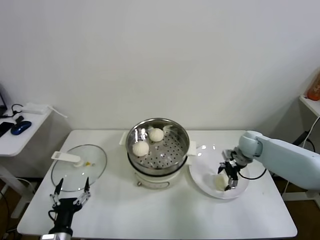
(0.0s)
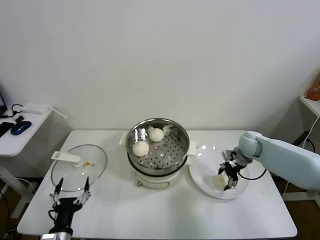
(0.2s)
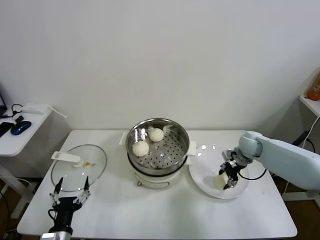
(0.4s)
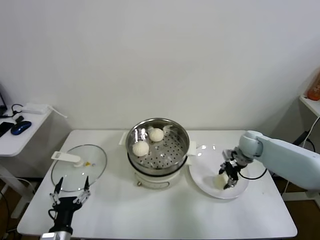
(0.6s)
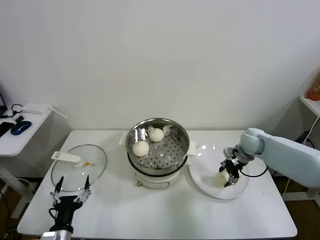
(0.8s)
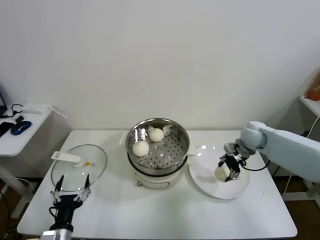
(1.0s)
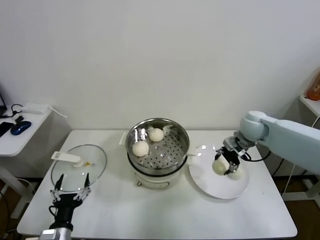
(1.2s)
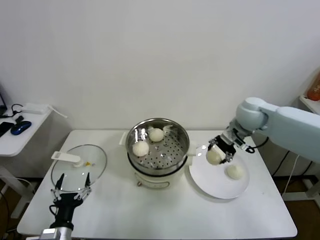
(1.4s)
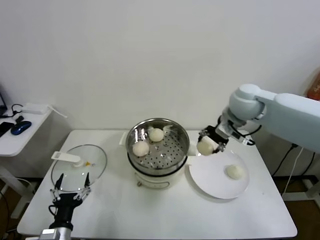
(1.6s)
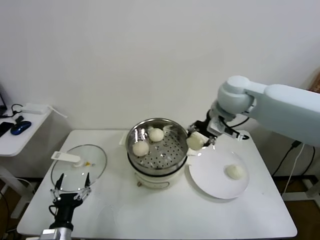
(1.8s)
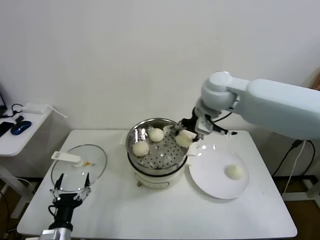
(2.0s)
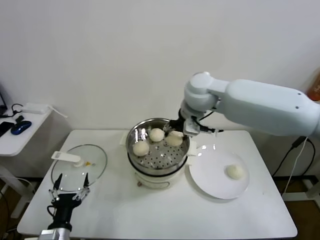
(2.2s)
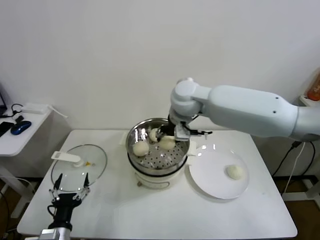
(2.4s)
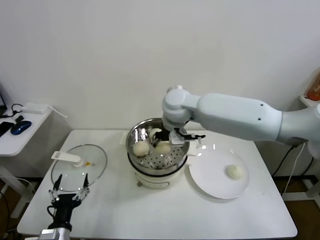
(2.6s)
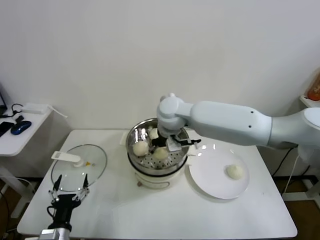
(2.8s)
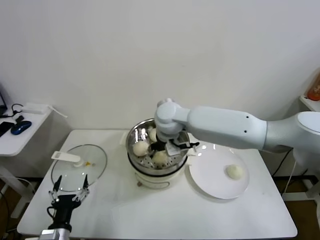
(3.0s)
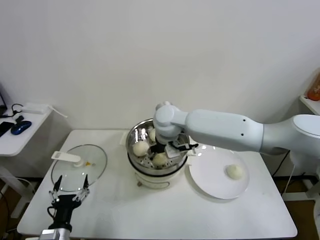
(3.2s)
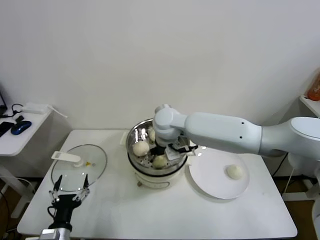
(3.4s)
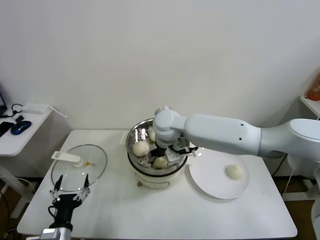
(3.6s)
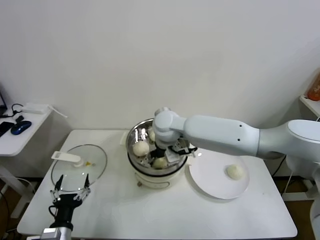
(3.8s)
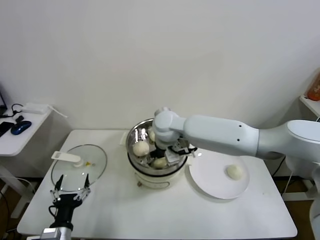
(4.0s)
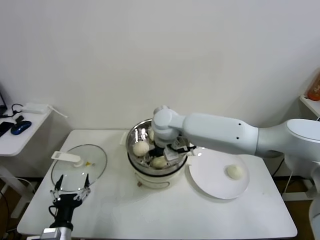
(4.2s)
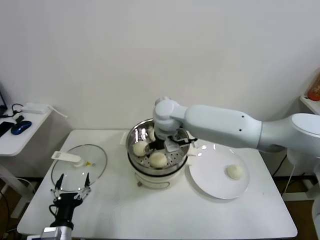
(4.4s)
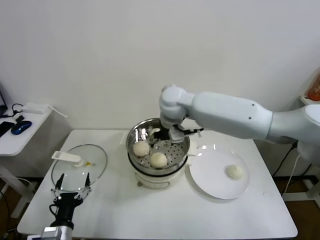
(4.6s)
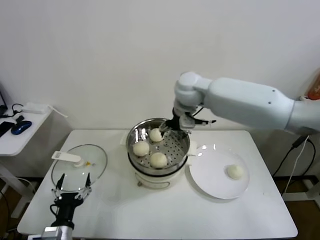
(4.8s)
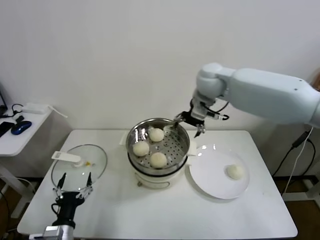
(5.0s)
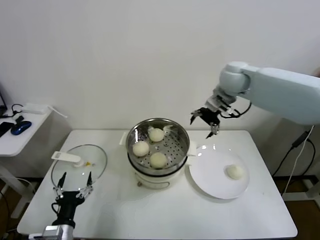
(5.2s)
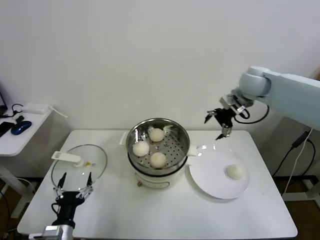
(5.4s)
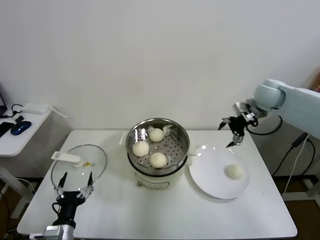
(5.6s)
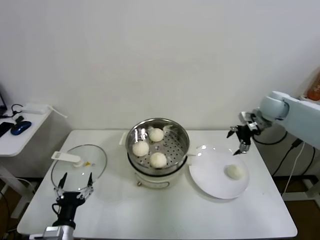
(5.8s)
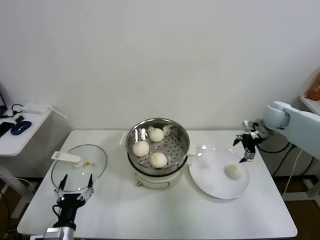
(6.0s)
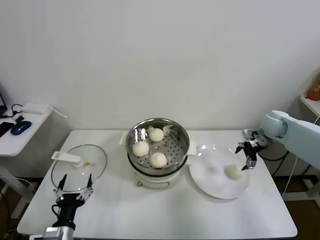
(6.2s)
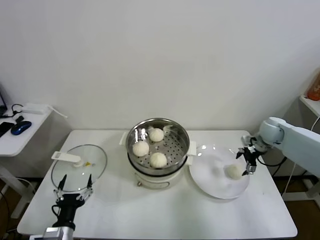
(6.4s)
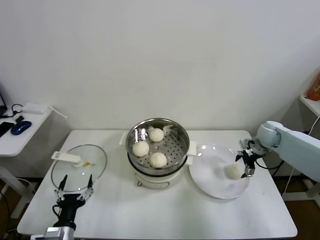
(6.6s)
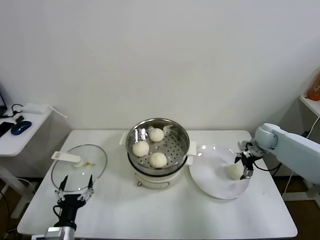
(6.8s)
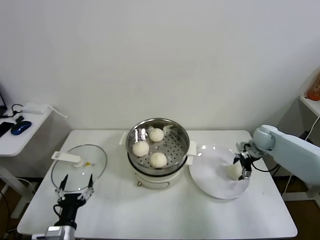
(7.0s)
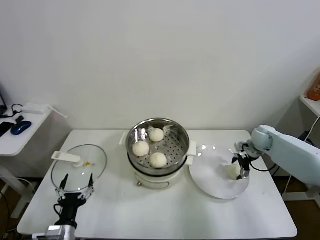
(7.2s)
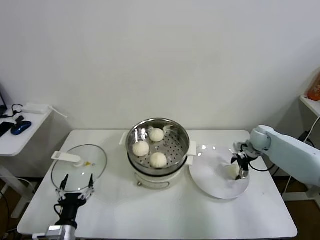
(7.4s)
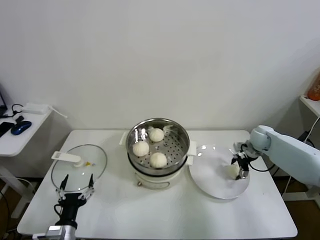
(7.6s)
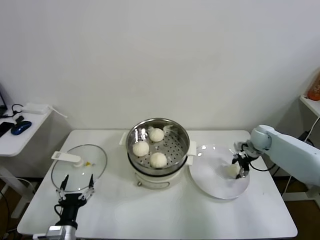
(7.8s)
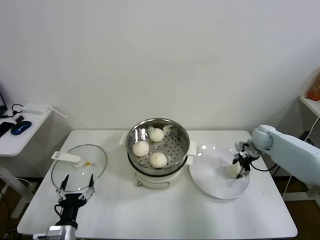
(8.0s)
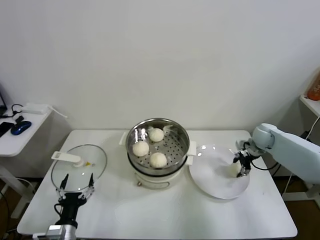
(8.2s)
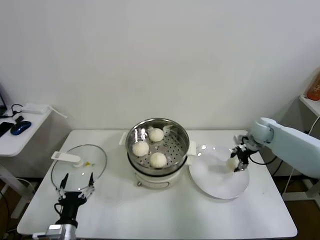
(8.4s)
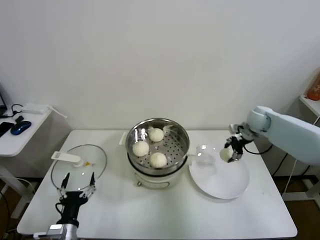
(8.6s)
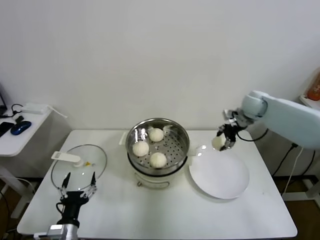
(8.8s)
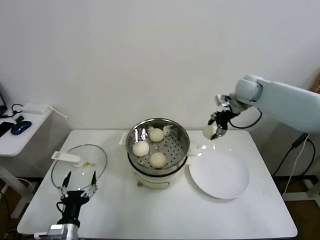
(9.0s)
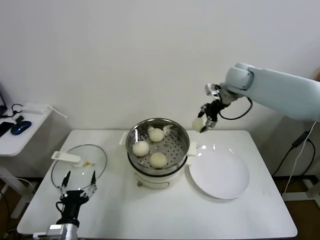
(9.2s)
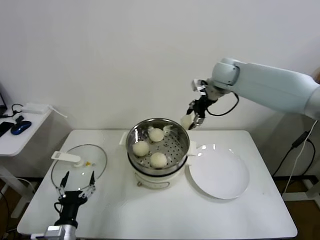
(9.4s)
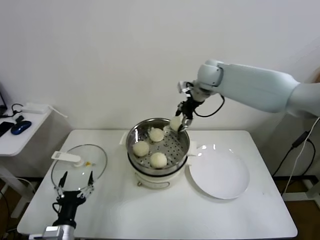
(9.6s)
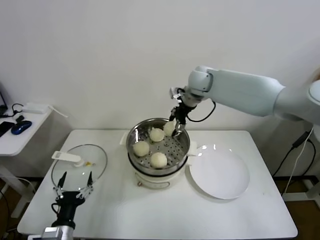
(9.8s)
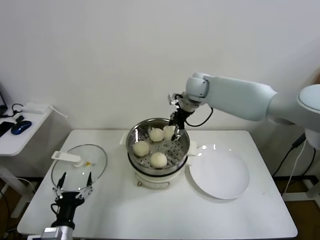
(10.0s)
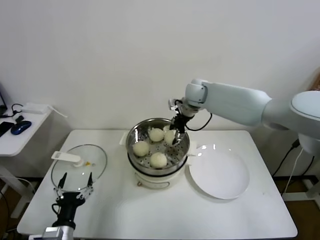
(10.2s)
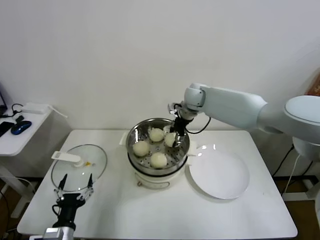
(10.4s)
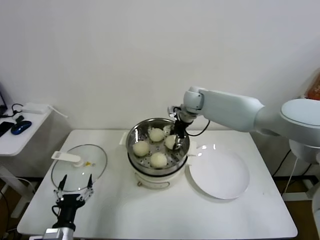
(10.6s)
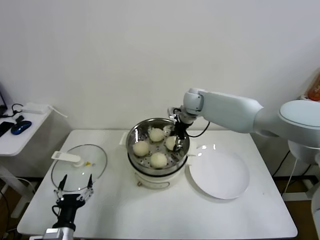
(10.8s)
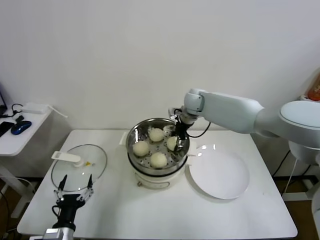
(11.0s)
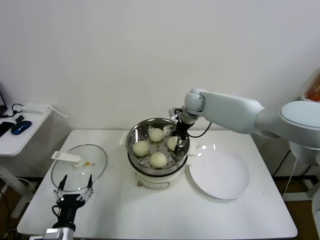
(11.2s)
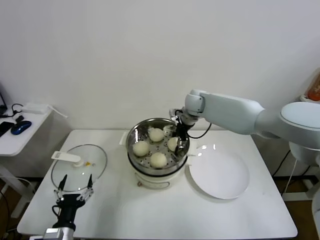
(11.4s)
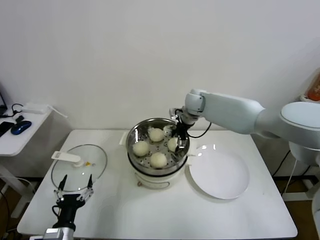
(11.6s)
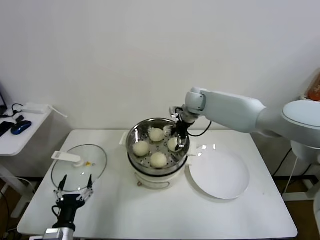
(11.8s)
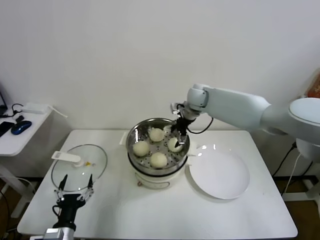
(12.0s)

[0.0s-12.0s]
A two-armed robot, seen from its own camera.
Task of the whole recording: take steamed baozi put them in steamer.
Step, 0.6s to 4.0s: Place the baozi on the steamer with right gripper.
Step, 4.4s to 7.8s: Grasp the baozi in the plate with right gripper.
Step, 8.2s to 11.8s: Place the baozi on the steamer with right gripper.
0.0s to 1.6s: The right gripper moves upward and to the left, approximately 25 cm, and closes its fingers.
1.6s to 3.0s: The right gripper heads to the left, covering approximately 20 cm.
3.0s to 4.4s: The right gripper opens up.
4.4s to 6.0s: The right gripper moves to the right, approximately 40 cm.
6.0s to 7.6s: The right gripper shifts some 10 cm downward.
7.6s to 9.0s: The right gripper shifts some 20 cm upward and to the left, and closes up.
9.0s to 10.4s: The right gripper goes about 20 cm to the left.
10.4s to 12.0s: The right gripper opens up.

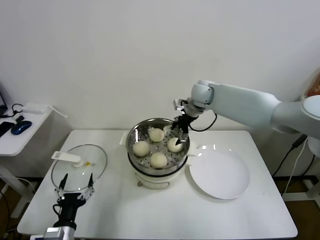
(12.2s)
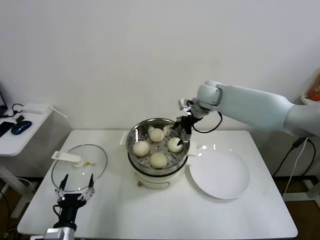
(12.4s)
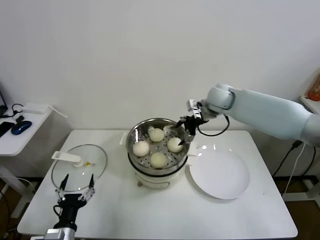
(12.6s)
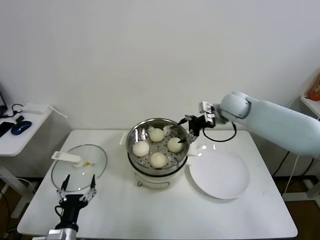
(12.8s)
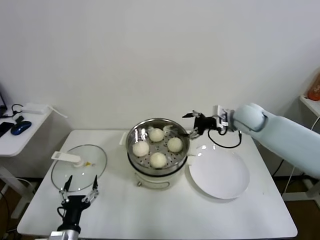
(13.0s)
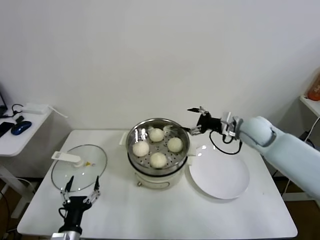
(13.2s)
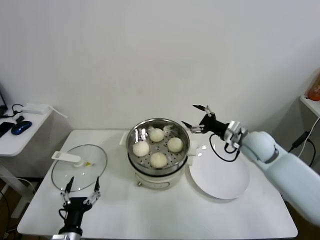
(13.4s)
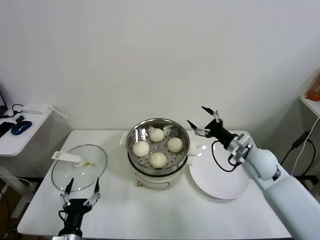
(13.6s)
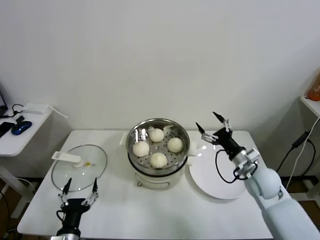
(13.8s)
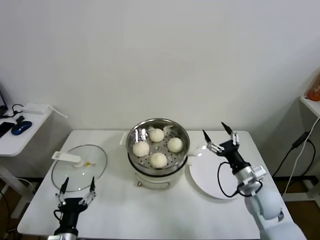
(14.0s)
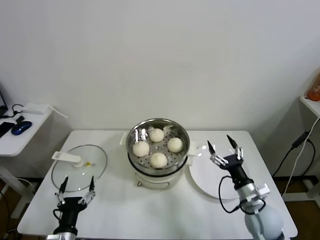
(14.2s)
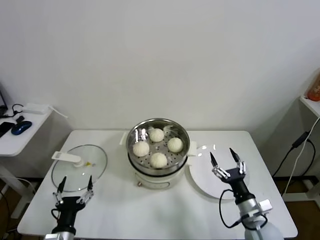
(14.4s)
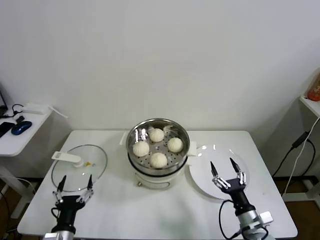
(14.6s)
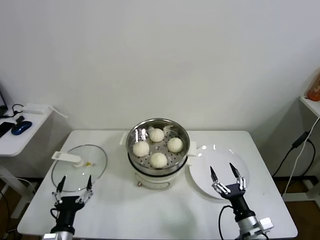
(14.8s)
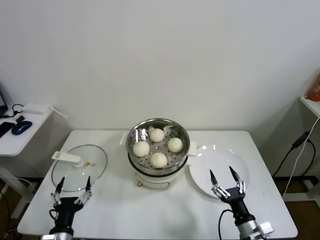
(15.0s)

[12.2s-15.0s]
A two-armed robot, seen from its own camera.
Task of the whole recording: take steamed baozi put them in steamer.
12.2s to 13.6s: The right gripper moves backward, to the right and downward, some 30 cm.
13.6s to 15.0s: The right gripper moves backward and downward, about 30 cm.

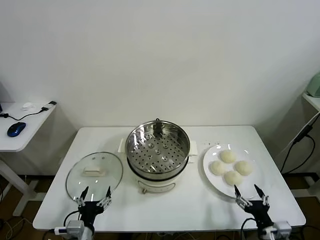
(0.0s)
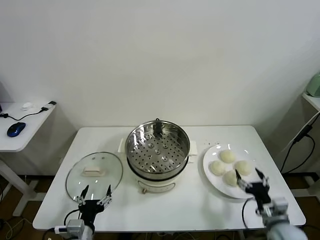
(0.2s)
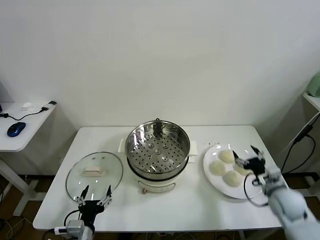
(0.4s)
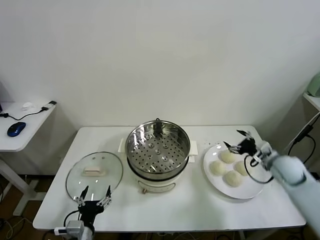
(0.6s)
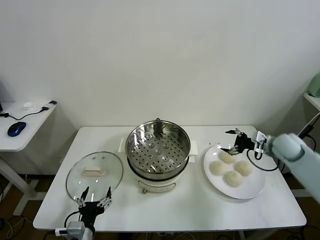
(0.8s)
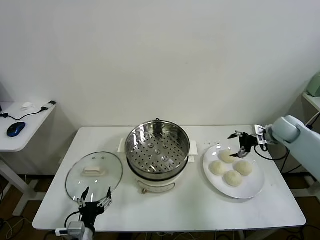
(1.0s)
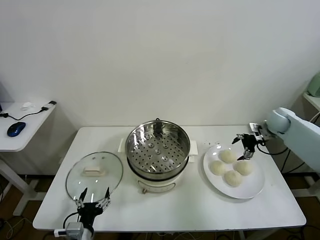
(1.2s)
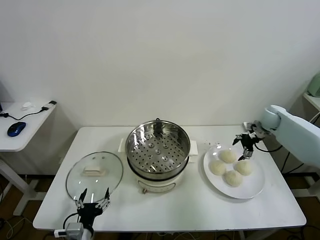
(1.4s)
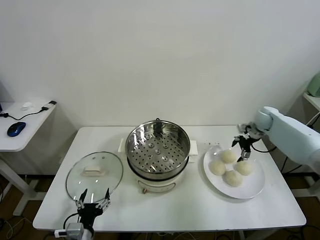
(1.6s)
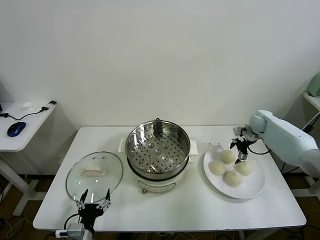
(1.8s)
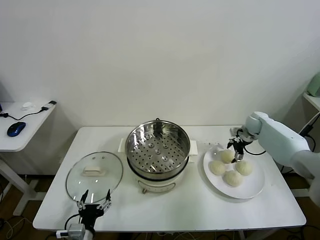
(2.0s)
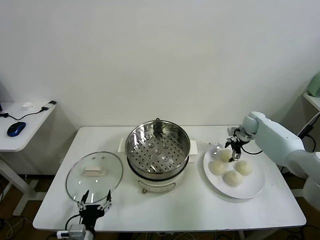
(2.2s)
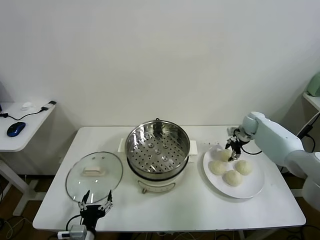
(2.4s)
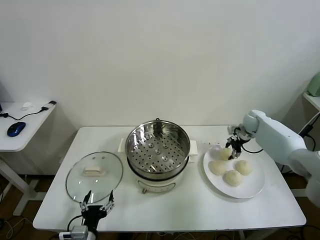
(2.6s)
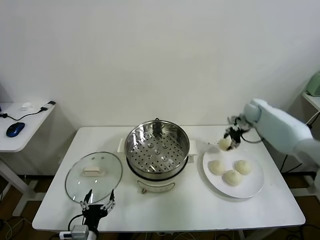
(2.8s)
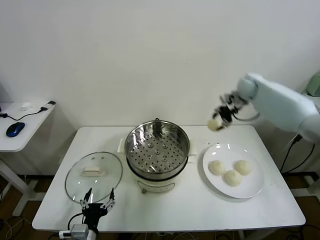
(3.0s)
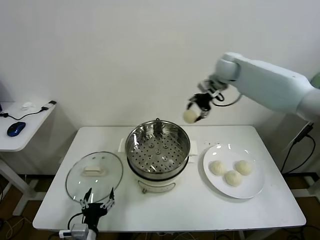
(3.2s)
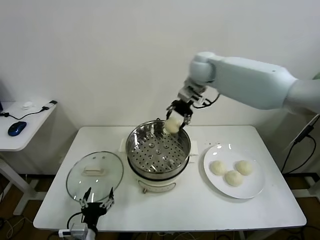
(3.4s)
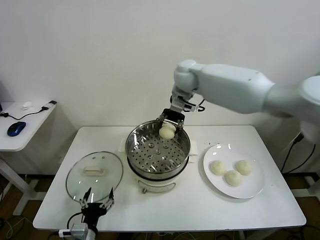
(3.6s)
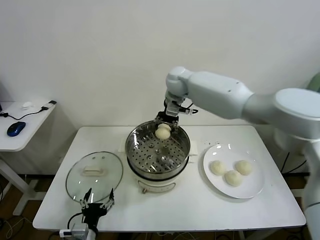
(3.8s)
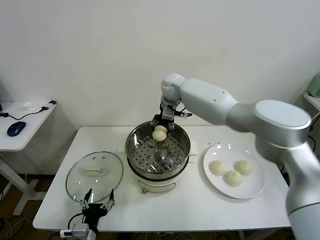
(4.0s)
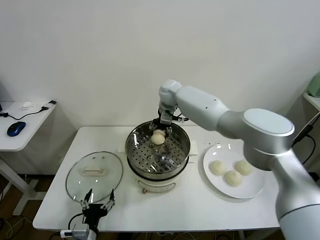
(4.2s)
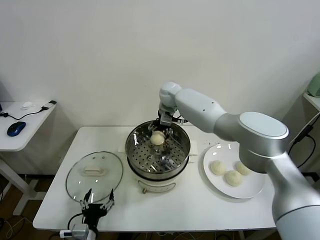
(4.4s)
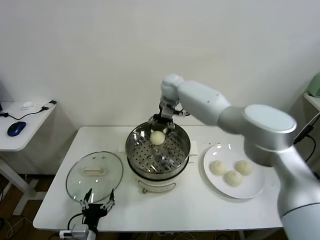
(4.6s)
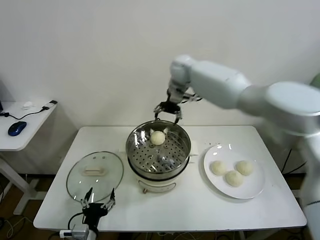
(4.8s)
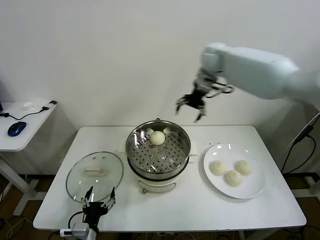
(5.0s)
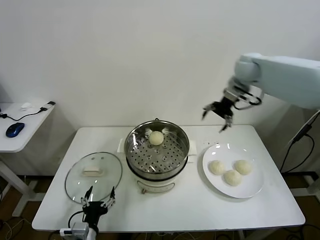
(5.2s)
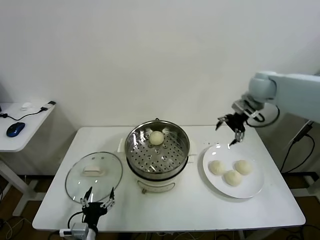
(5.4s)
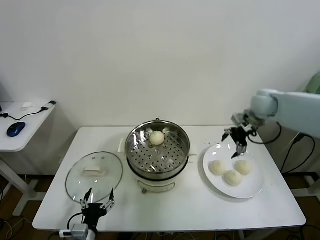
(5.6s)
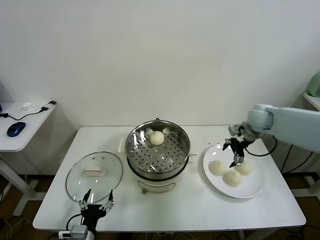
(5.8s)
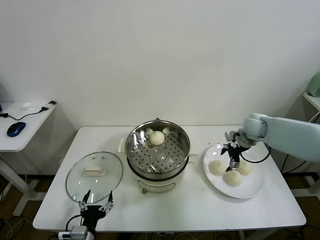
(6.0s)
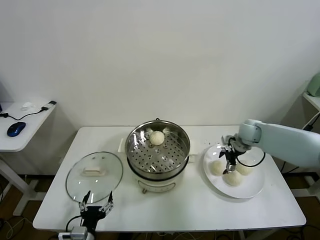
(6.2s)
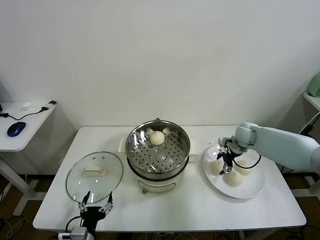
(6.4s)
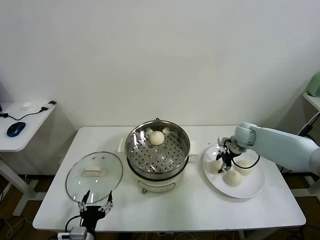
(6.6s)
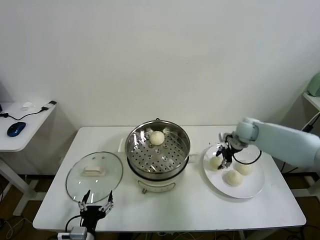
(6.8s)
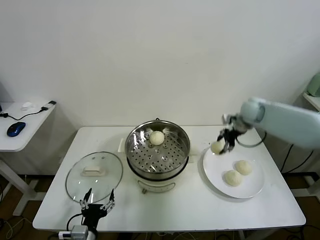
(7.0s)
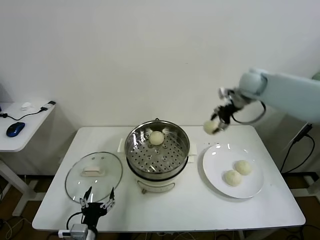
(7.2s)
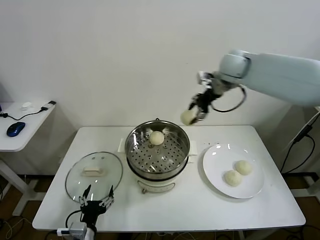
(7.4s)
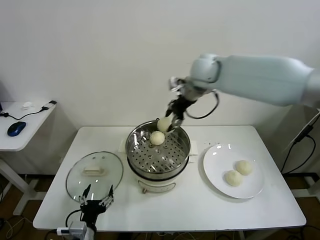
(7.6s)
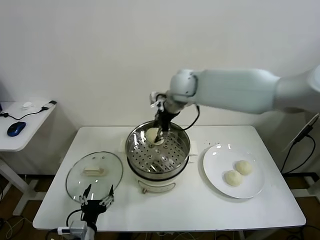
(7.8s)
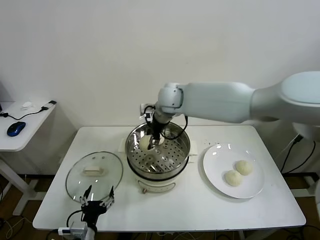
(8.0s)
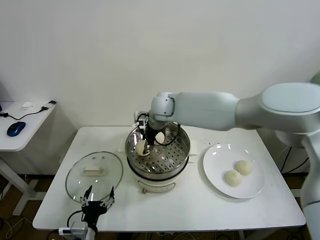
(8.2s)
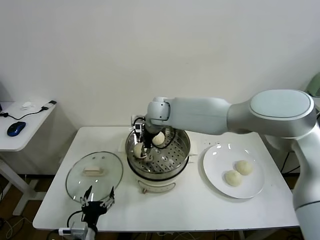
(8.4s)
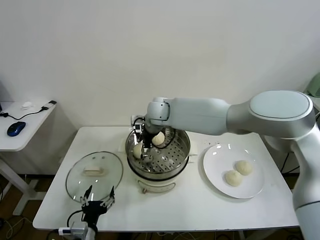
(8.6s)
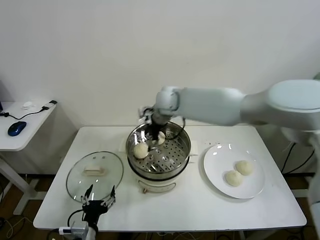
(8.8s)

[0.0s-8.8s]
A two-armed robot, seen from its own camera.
Task of the whole recording: take steamed baozi put them in steamer.
Step, 0.0s to 2.4s: Grasp the baozi in the plate with right gripper.
Step, 2.6s to 4.6s: Place the baozi on the steamer with right gripper.
Step, 5.0s to 6.6s: Grasp the baozi in the plate with right gripper.
Step, 6.8s to 8.8s: Place the baozi on the steamer with right gripper.
1.4s to 3.0s: The right gripper heads upward and to the left, covering some 25 cm, and closes.
3.0s to 4.4s: The right gripper goes approximately 25 cm to the left, and opens.
4.4s to 5.8s: The right gripper goes about 30 cm to the right.
5.8s to 7.4s: The right gripper heads upward and to the left, covering roughly 25 cm, and closes.
7.4s to 8.8s: The right gripper goes approximately 15 cm to the left and downward, and opens.
